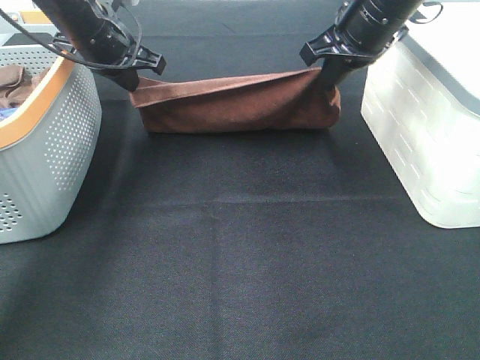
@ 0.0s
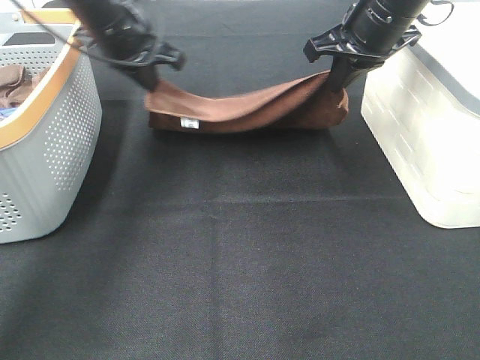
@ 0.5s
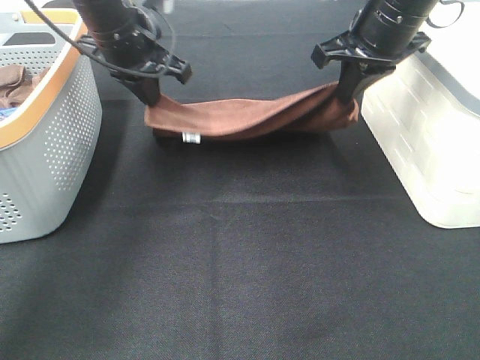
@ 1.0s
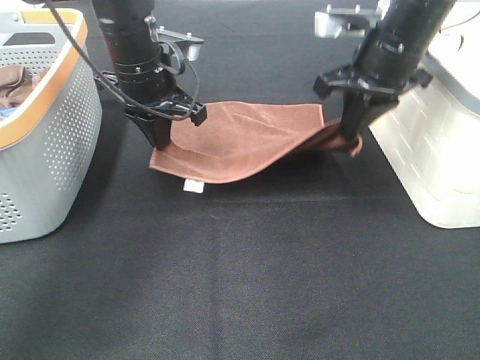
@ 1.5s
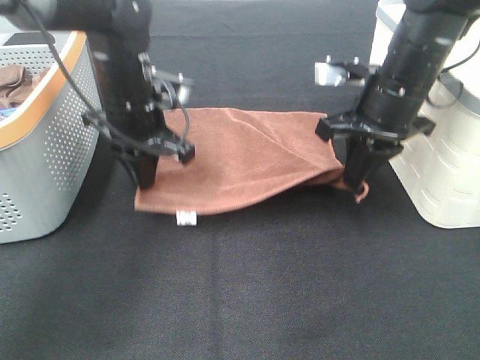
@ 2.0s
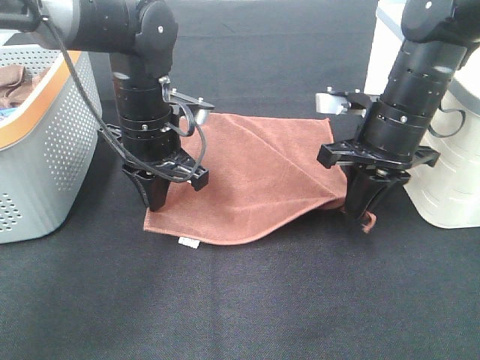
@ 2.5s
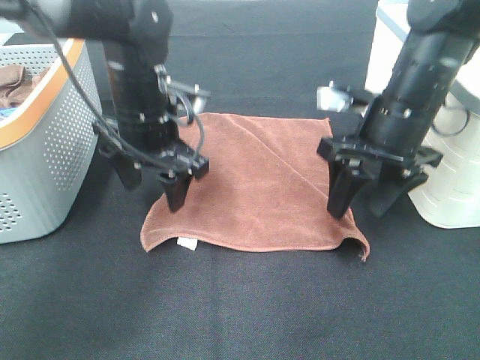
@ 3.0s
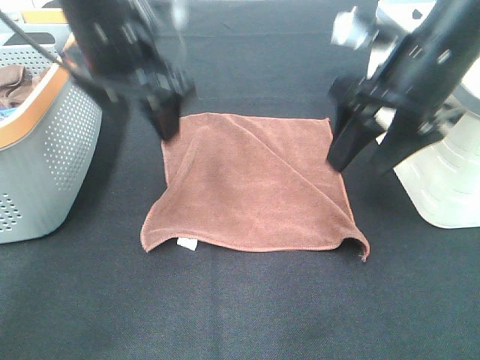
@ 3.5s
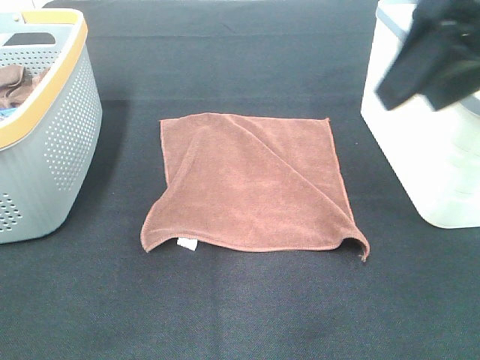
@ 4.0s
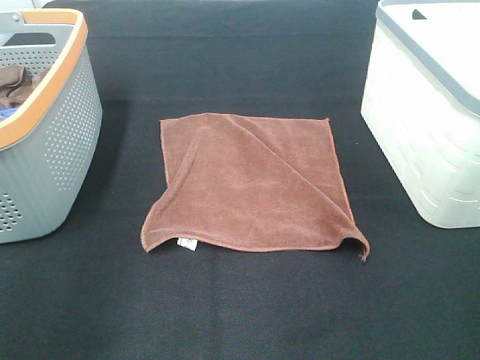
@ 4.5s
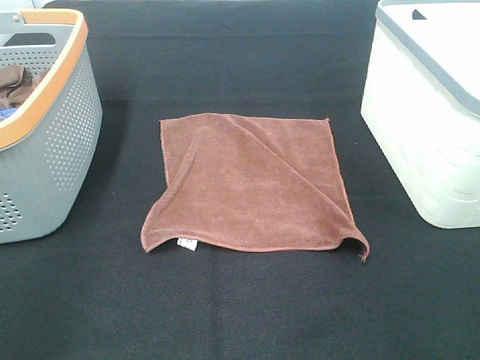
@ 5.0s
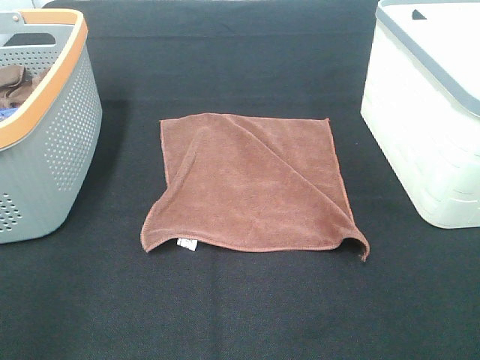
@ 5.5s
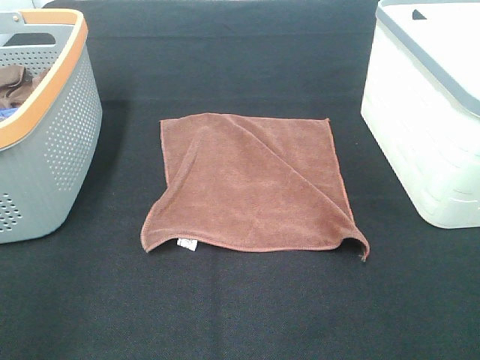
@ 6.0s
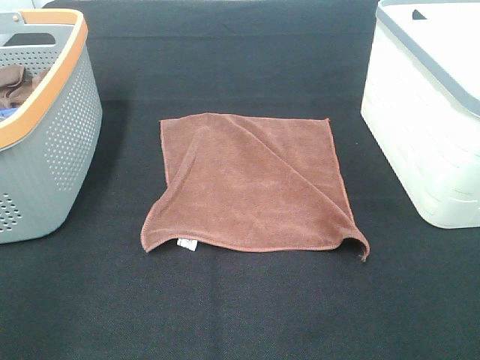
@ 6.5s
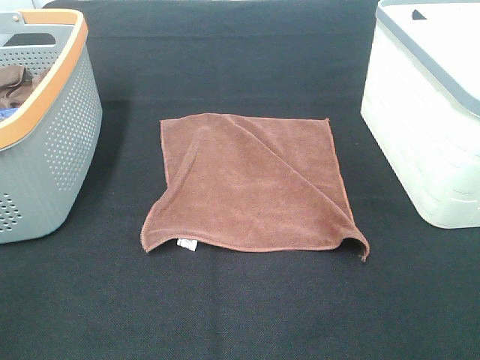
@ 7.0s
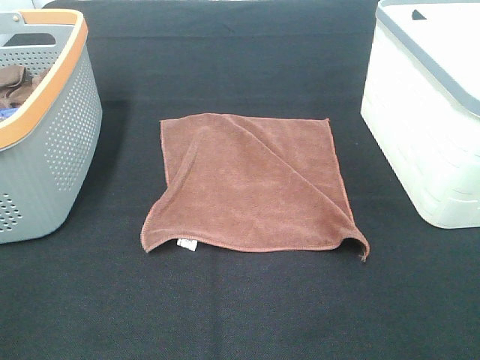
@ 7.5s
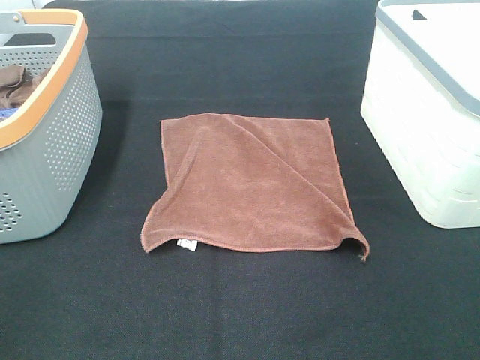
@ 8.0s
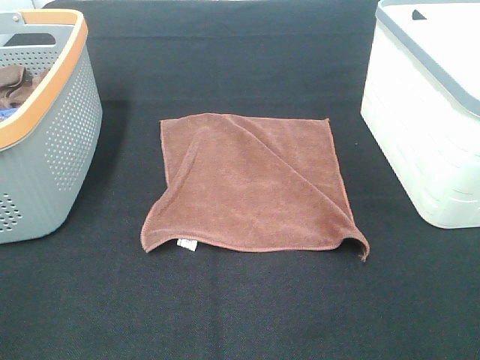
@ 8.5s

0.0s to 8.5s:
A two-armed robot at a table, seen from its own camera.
Task of the whole recording: Remove the towel and place it.
0.0s to 2.0s: The right gripper goes approximately 10 cm downward and backward. The left gripper is displaced backward, to the right and downward by some 10 cm.
2.0s to 4.0s: The grippers both shift upward and backward by about 25 cm. The right gripper opens its fingers. The left gripper opens up.
4.0s to 6.5s: The right gripper is displaced backward, downward and to the right by about 20 cm. The left gripper travels backward, downward and to the left by roughly 25 cm.

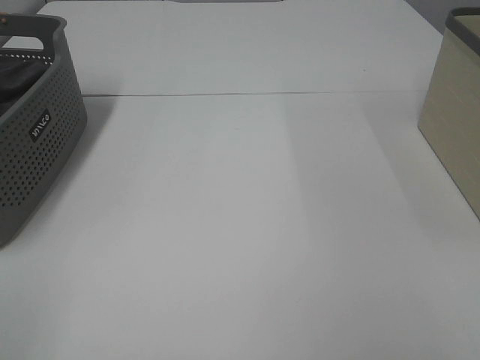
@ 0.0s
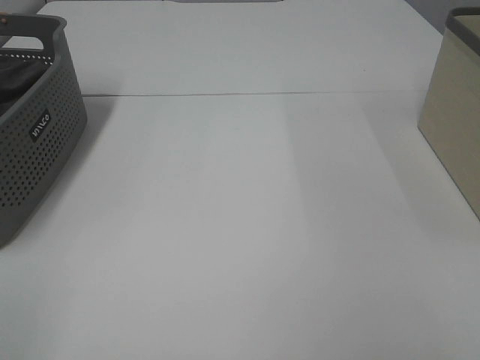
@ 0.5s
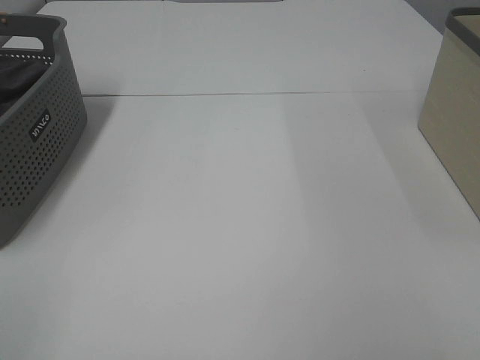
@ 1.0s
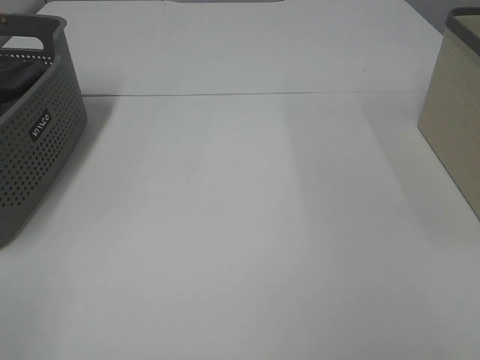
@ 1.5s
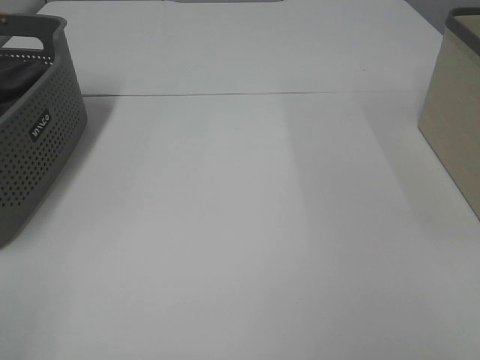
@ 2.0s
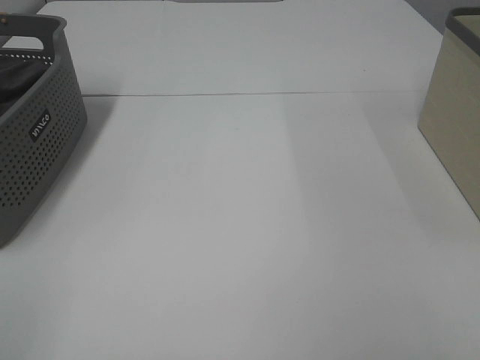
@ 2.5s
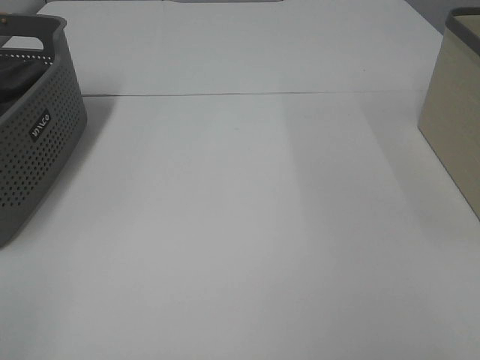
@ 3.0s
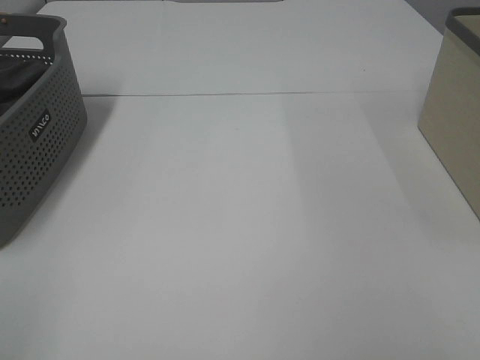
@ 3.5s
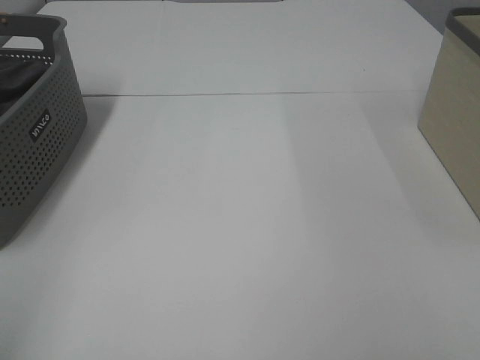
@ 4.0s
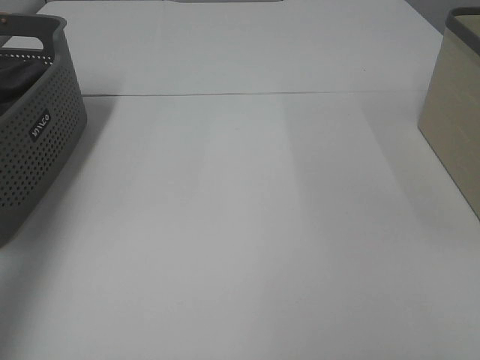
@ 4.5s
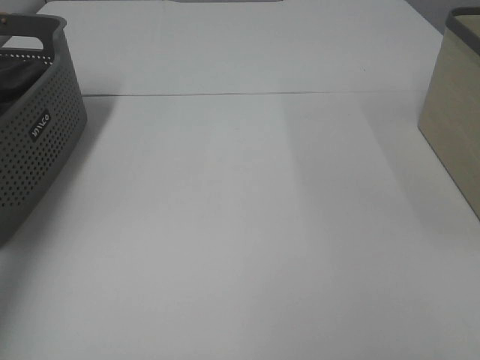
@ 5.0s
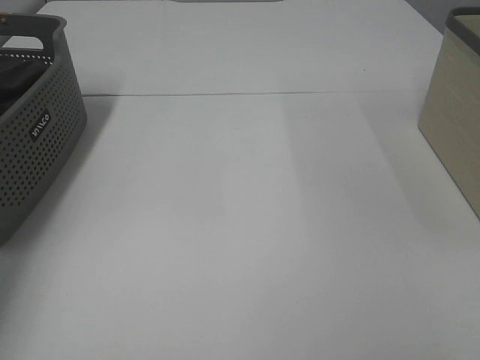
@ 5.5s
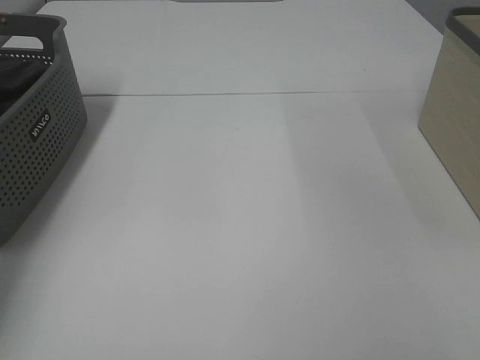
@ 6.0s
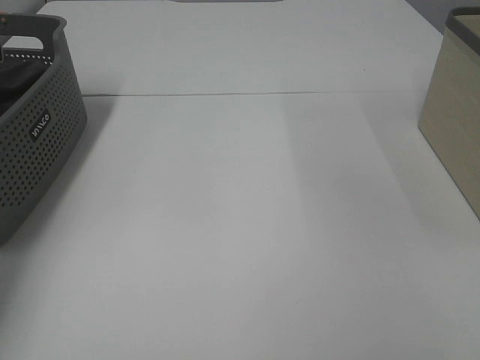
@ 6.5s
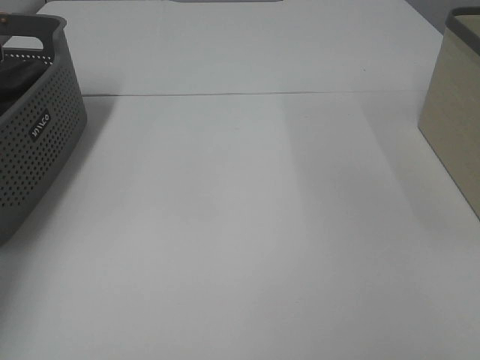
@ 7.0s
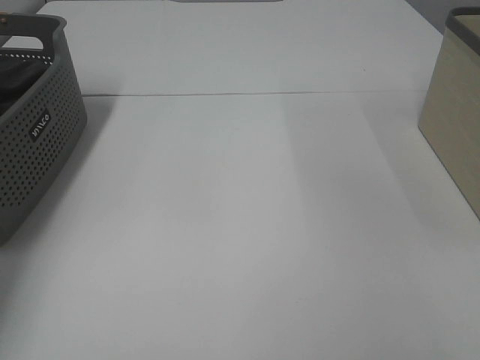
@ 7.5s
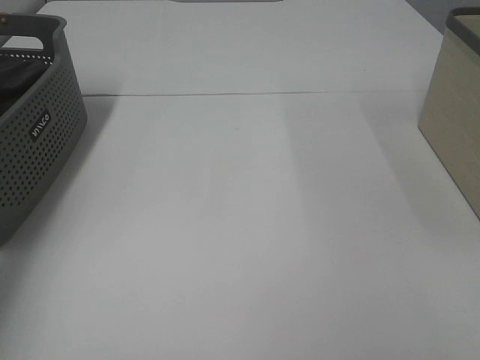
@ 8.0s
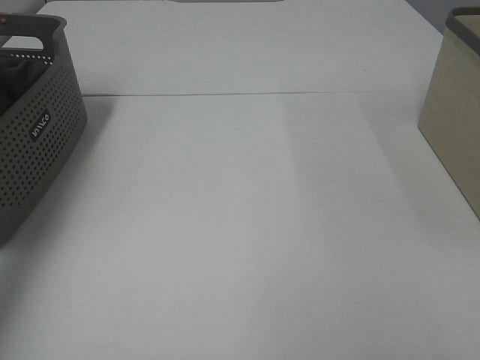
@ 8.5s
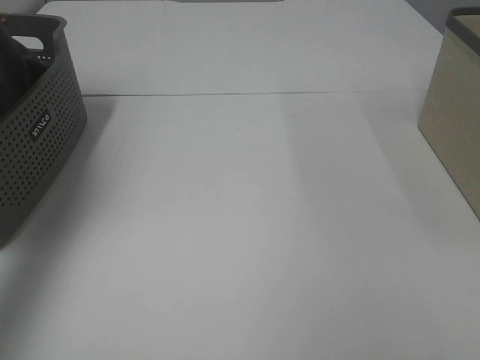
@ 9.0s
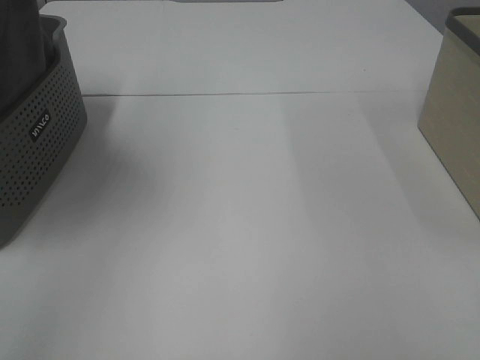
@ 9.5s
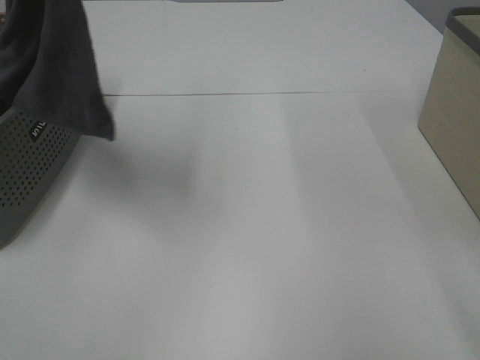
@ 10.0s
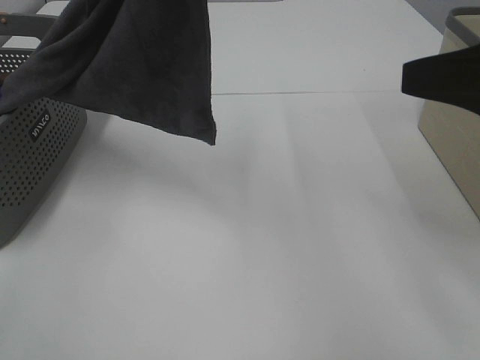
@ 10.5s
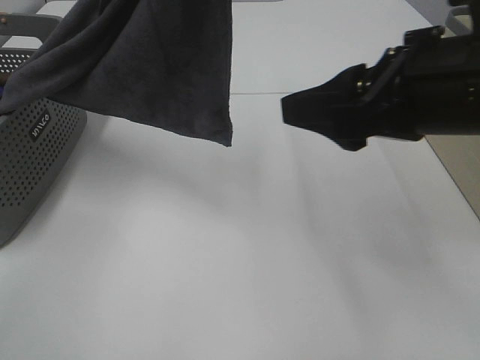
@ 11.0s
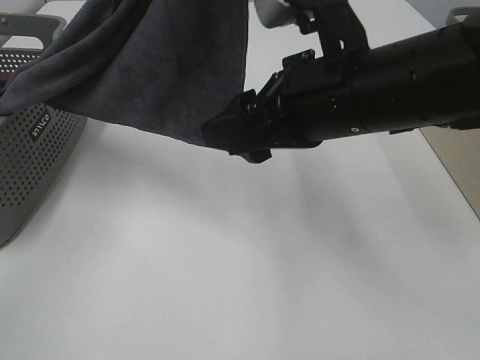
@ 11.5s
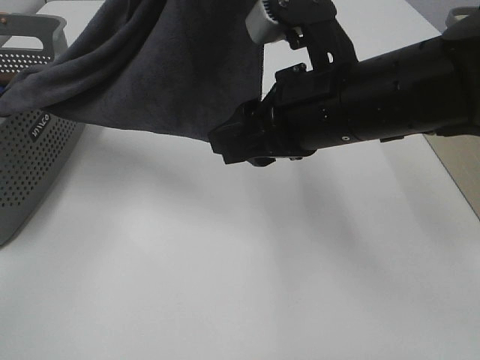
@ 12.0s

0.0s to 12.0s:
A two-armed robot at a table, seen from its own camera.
Task of the whole recording: Remove the towel and place it.
0.0s to 2.0s: Both grippers stay about where they are.
4.0s to 6.0s: The left gripper goes roughly 40 cm forward.
8.0s to 10.0s: The right gripper shifts some 10 cm forward. Meanwhile the left gripper goes some 35 cm to the right, upward and backward.
10.0s to 12.0s: The right gripper heads to the left, forward and downward, covering some 25 cm, while the left gripper travels to the right by about 10 cm.

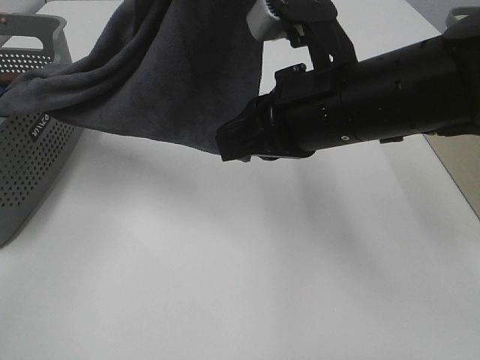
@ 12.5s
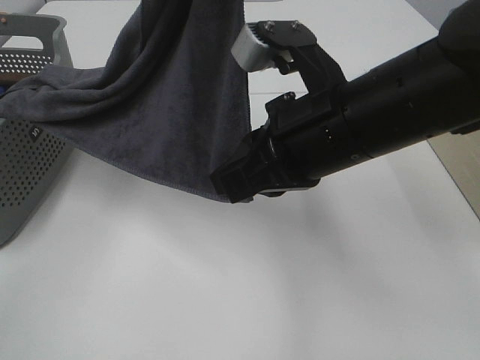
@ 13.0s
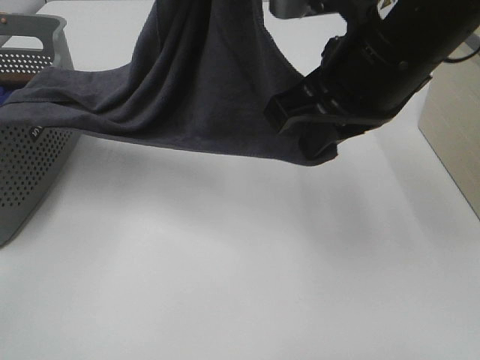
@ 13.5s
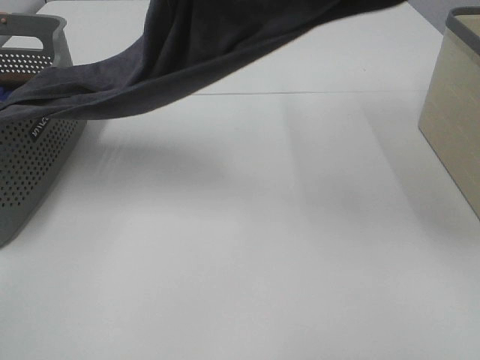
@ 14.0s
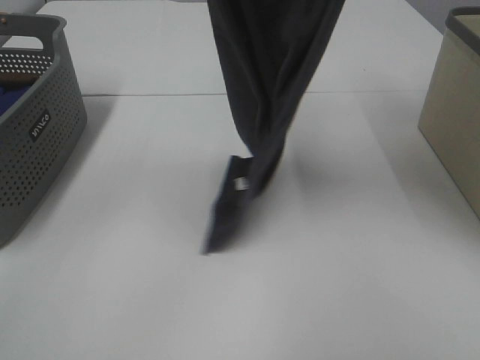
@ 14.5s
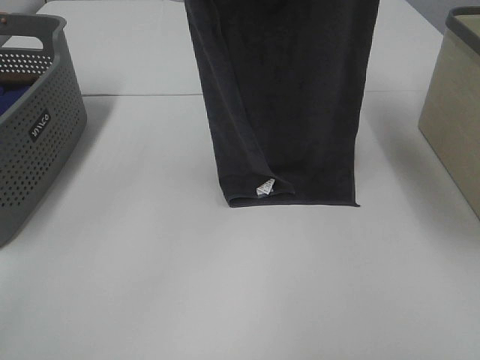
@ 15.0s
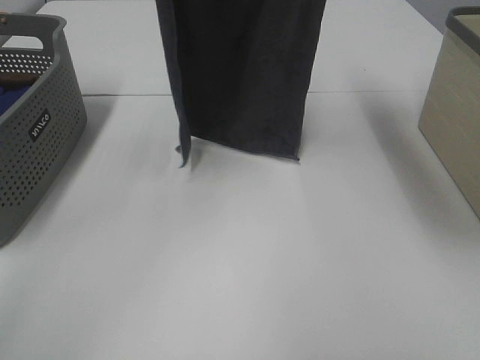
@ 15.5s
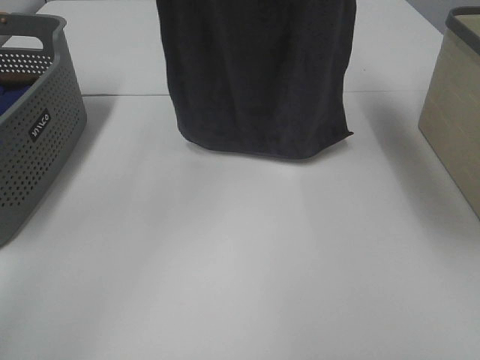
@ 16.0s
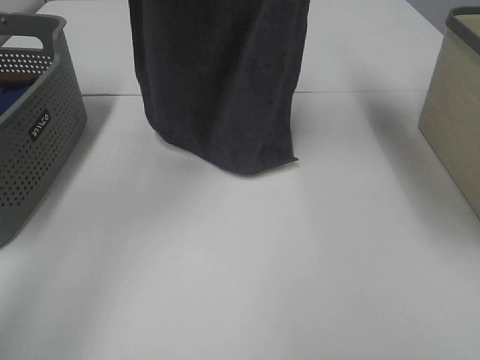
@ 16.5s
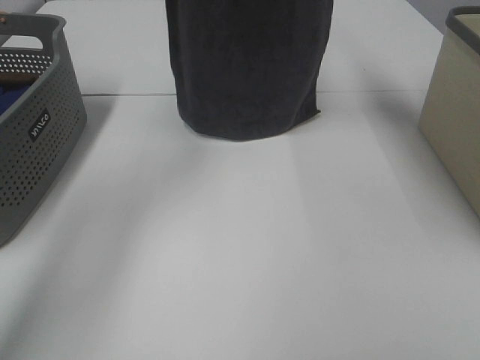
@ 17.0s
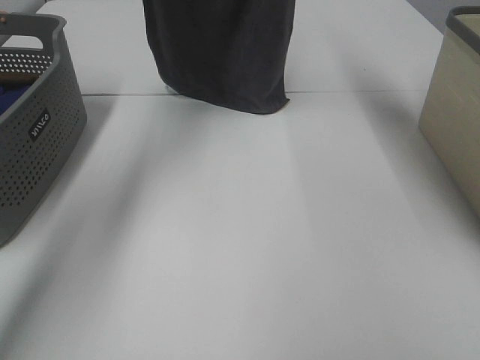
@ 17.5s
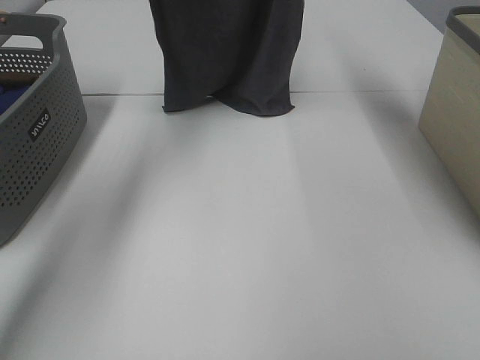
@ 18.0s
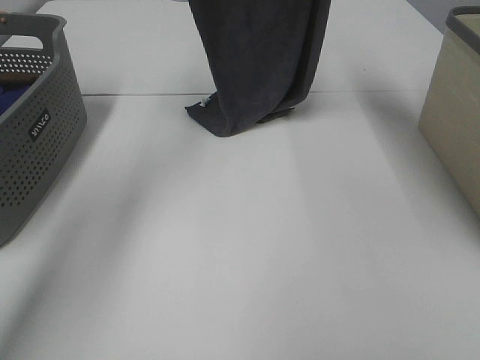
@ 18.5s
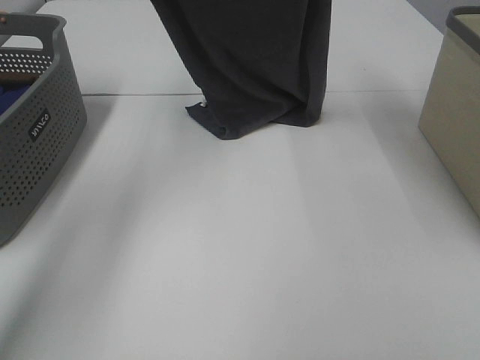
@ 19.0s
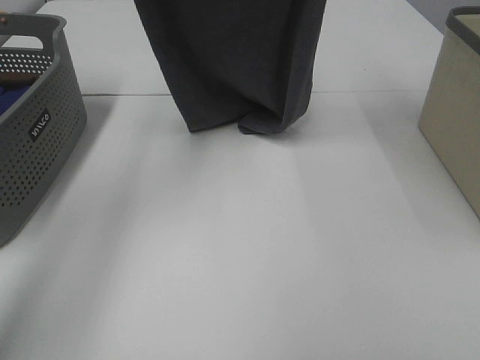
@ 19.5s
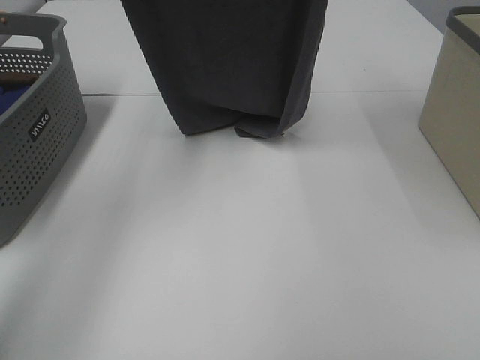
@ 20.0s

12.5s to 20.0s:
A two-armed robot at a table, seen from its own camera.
Task of the whole recording: Remove the towel and place it.
12.5s to 14.5s: The left gripper ends up some 5 cm from where it was. Meanwhile the right gripper goes some 25 cm upward.
14.5s to 16.5s: Both grippers move forward, about 10 cm.
16.5s to 18.0s: The two grippers go approximately 10 cm forward.
18.0s to 20.0s: The grippers both shift backward by about 10 cm.
